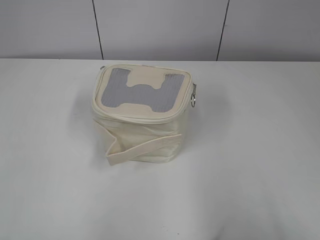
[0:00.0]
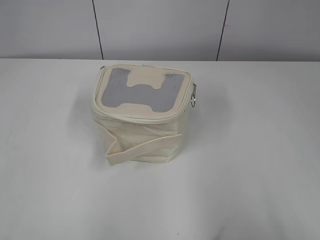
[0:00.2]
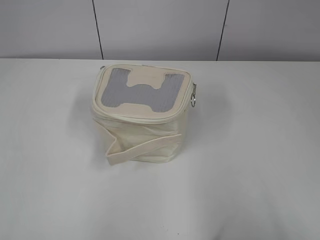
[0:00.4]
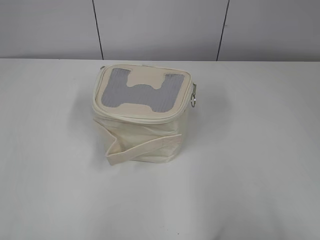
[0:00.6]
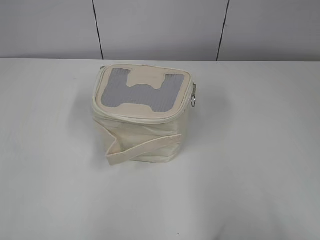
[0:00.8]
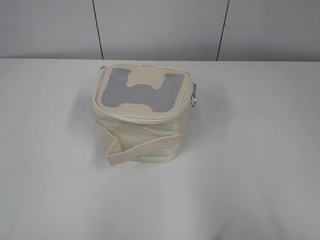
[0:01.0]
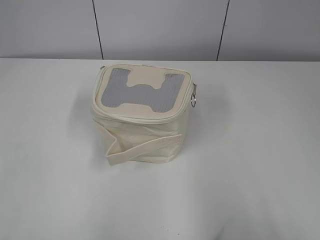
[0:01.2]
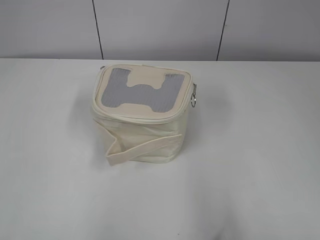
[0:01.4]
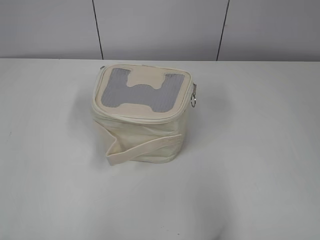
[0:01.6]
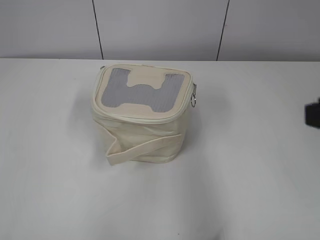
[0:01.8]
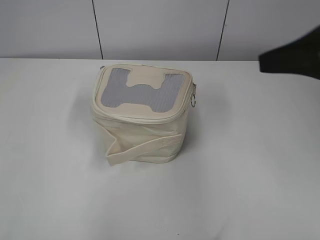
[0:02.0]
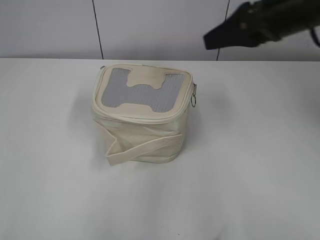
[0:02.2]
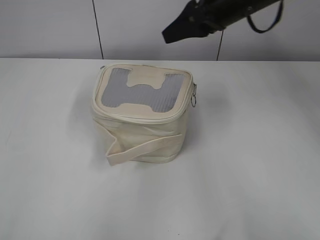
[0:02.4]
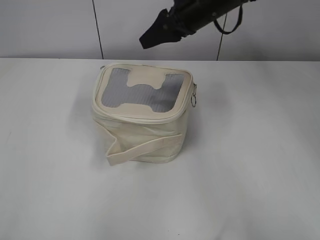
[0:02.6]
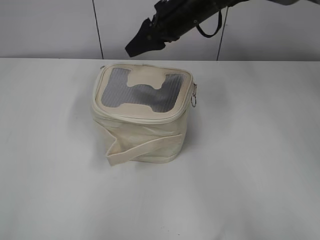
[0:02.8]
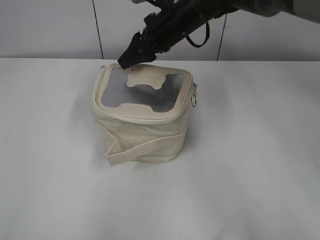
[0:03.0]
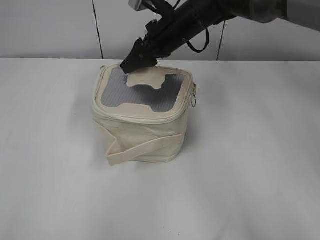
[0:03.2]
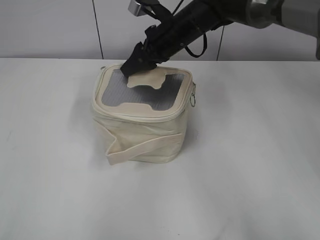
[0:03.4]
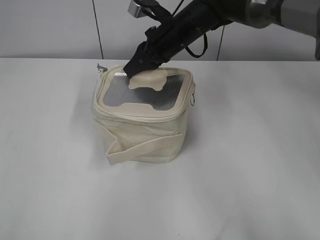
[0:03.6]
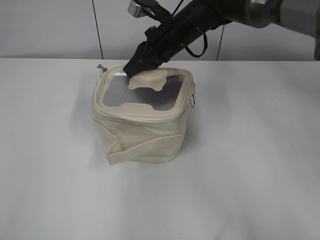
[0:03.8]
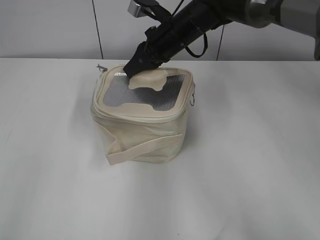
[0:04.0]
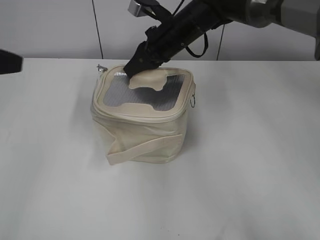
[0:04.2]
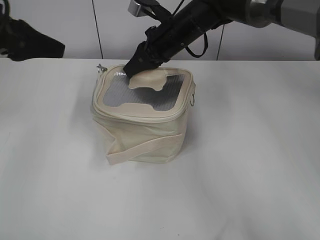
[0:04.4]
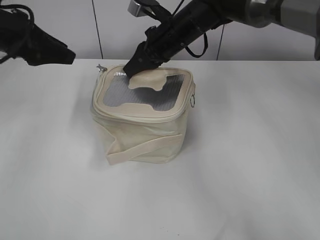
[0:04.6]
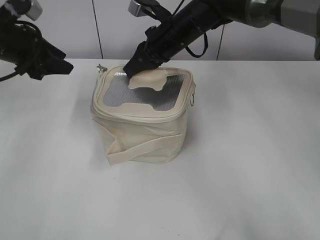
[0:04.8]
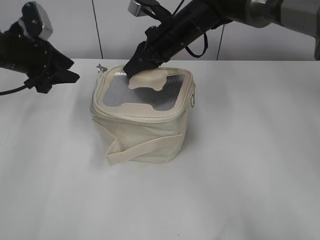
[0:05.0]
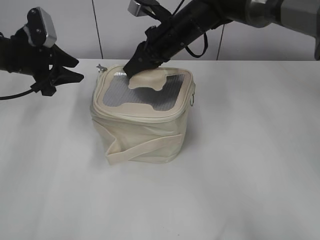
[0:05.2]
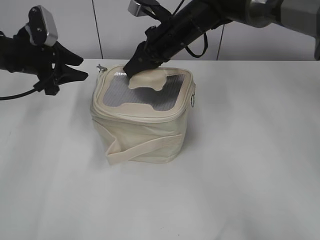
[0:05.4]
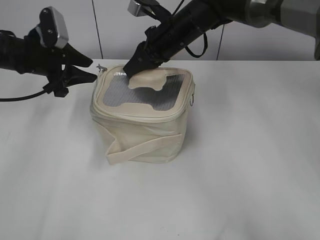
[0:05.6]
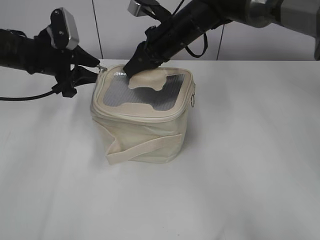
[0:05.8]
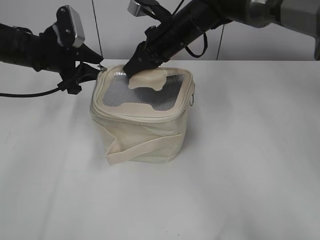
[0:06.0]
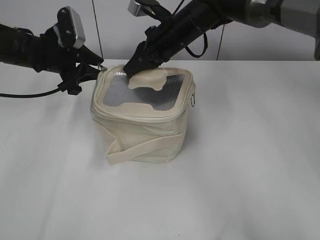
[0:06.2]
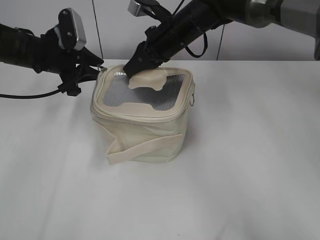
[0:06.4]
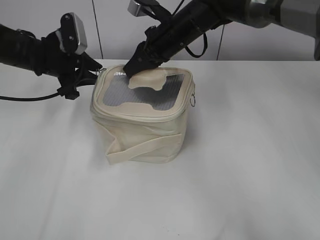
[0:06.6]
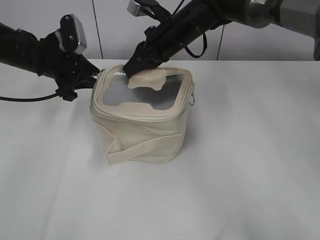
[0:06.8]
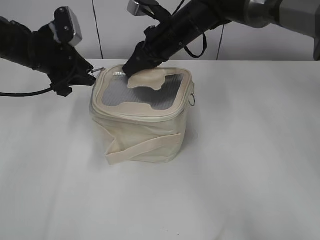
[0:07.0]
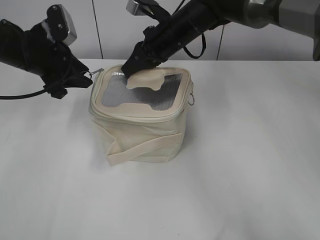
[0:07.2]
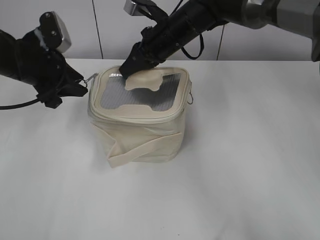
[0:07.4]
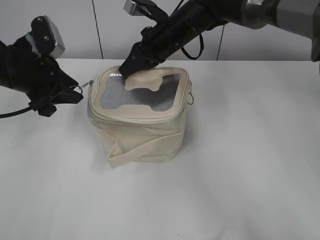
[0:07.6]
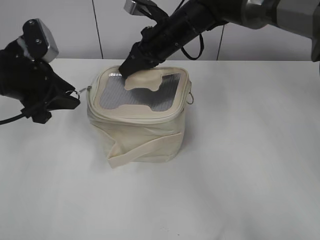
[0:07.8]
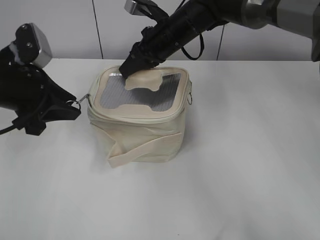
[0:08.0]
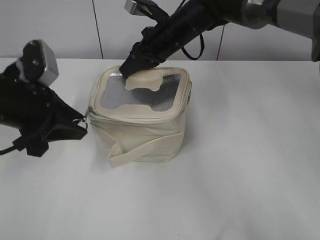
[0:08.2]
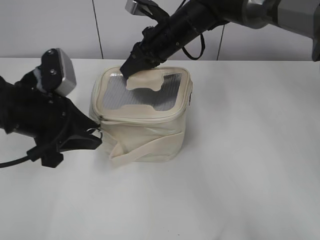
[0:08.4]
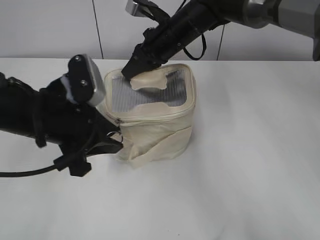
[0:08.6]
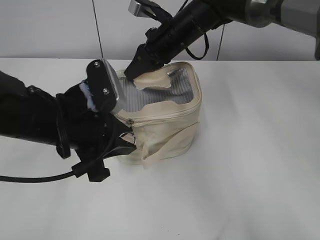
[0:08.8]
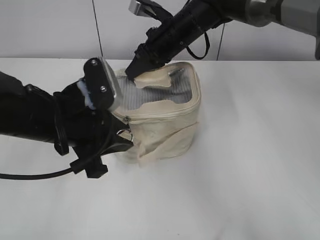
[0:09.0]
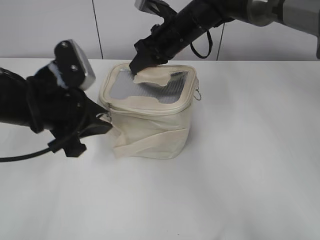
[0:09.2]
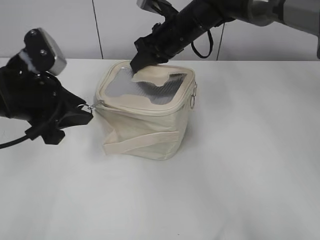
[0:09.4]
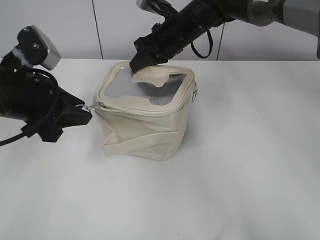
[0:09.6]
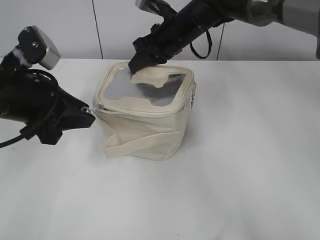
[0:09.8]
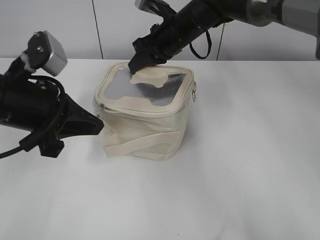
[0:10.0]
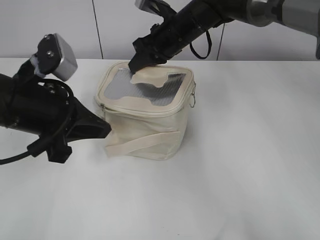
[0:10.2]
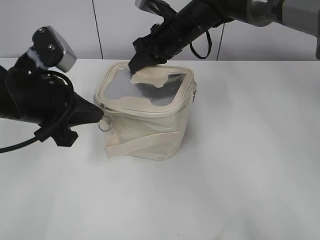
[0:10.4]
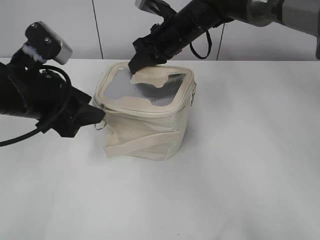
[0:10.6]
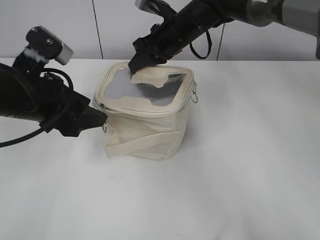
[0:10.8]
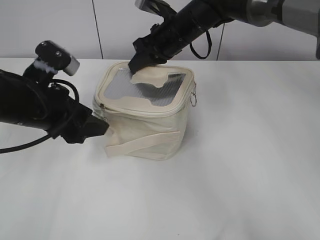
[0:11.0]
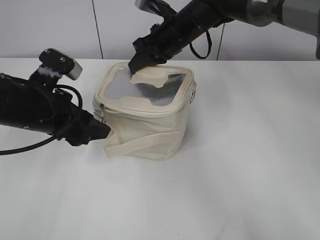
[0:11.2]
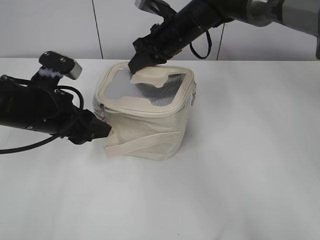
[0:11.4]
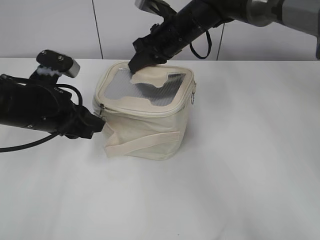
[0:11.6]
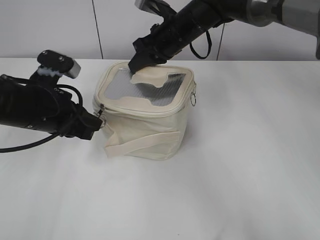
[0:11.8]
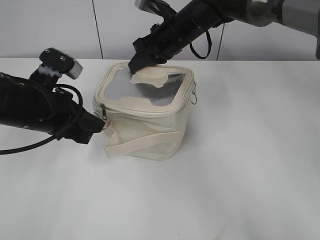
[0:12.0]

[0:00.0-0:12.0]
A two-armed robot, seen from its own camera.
0:01.6 to 0:03.0: The right gripper goes approximately 50 cm forward and to the left.
0:03.0 to 0:04.4: The right gripper closes its fingers. The left gripper moves forward, approximately 30 cm.
0:04.4 to 0:06.0: The left gripper travels forward and downward by some 15 cm.
0:06.0 to 0:07.6: The left gripper moves backward, about 5 cm.
0:07.6 to 0:09.0: The left gripper travels backward and to the right by approximately 15 cm.
0:09.0 to 0:10.4: The left gripper shifts roughly 5 cm to the left, and closes its fingers.
0:10.4 to 0:12.0: The left gripper opens and closes again.

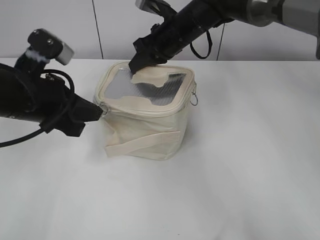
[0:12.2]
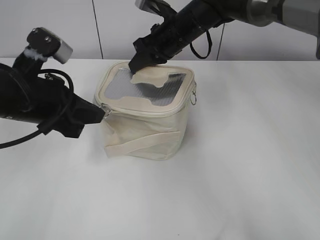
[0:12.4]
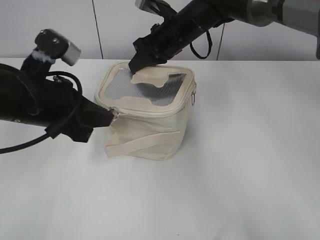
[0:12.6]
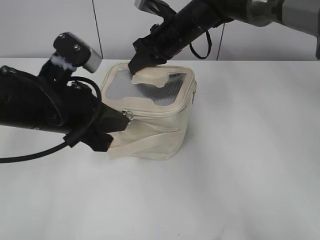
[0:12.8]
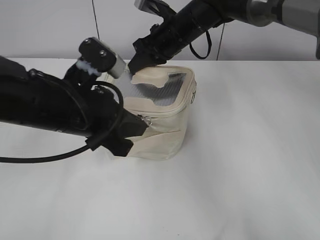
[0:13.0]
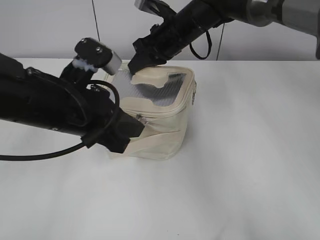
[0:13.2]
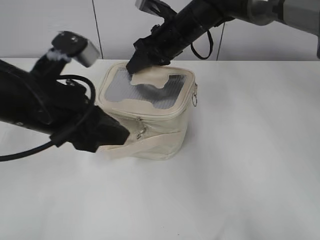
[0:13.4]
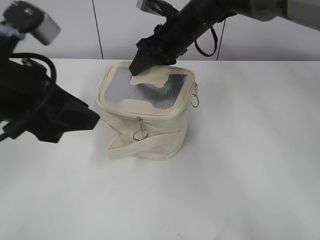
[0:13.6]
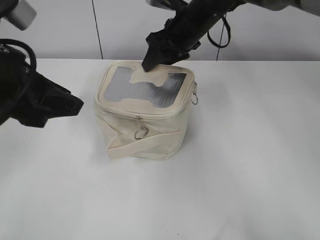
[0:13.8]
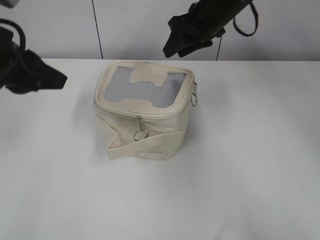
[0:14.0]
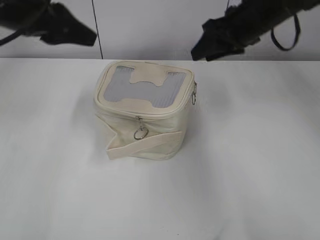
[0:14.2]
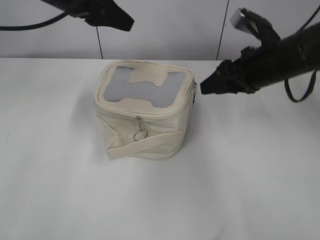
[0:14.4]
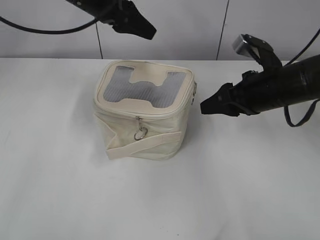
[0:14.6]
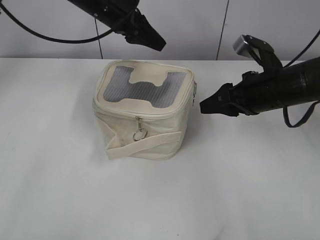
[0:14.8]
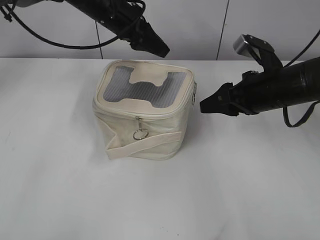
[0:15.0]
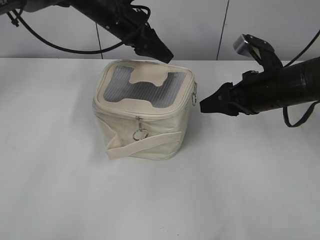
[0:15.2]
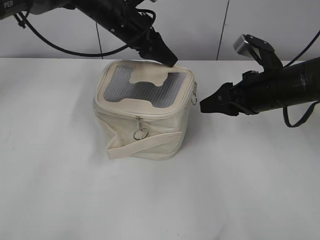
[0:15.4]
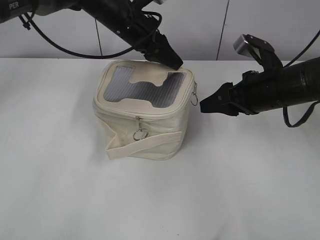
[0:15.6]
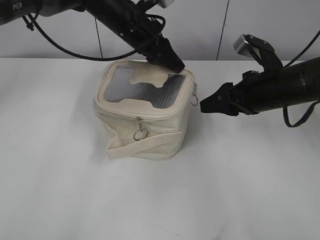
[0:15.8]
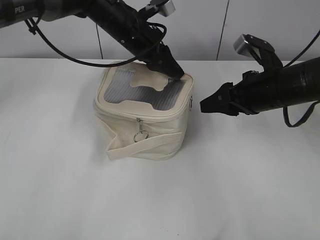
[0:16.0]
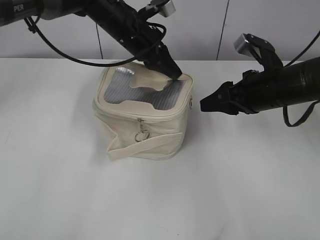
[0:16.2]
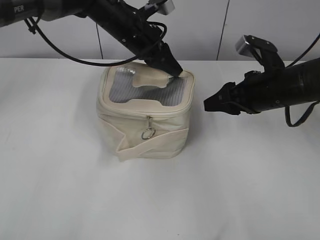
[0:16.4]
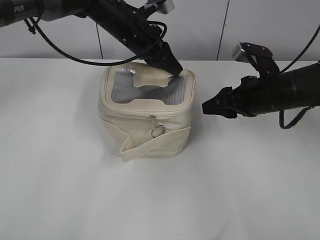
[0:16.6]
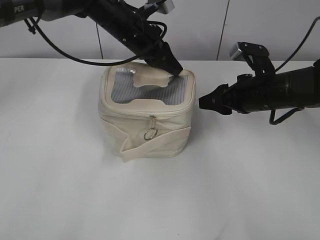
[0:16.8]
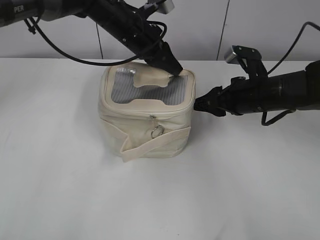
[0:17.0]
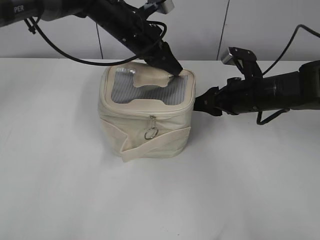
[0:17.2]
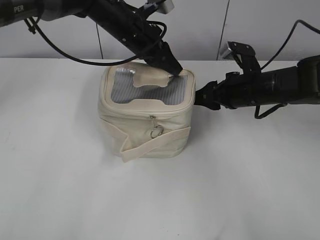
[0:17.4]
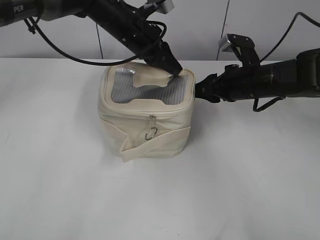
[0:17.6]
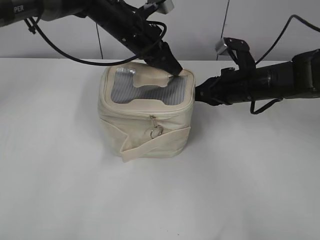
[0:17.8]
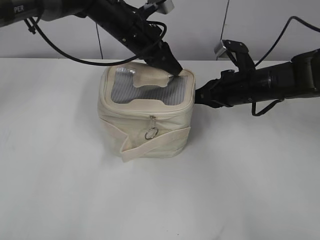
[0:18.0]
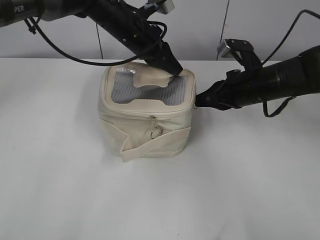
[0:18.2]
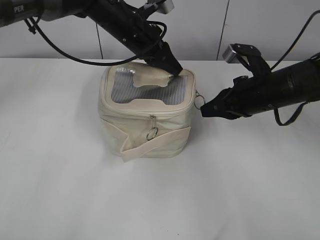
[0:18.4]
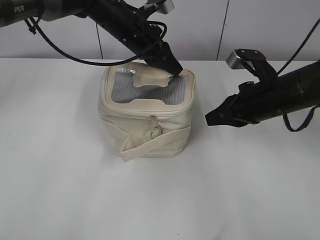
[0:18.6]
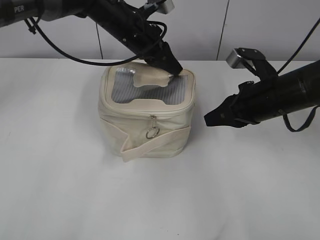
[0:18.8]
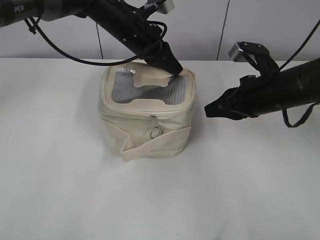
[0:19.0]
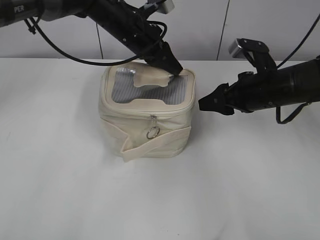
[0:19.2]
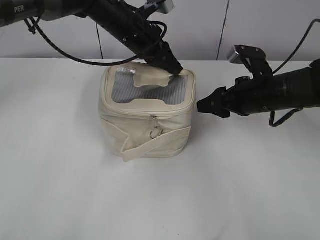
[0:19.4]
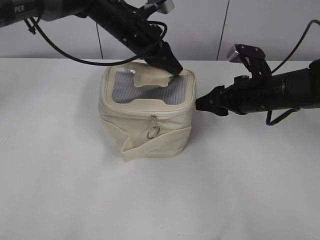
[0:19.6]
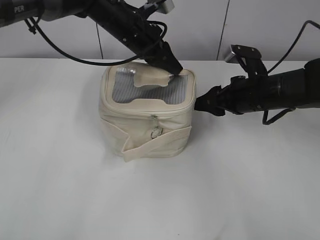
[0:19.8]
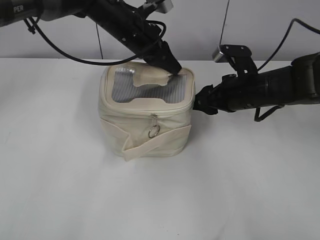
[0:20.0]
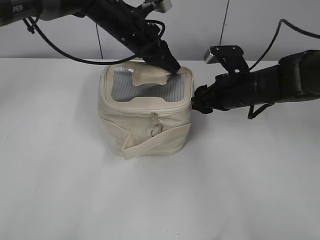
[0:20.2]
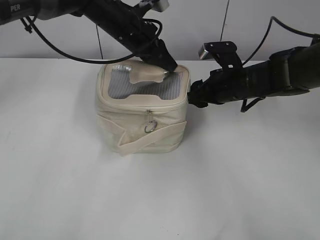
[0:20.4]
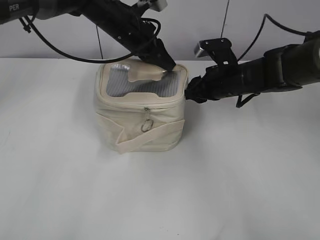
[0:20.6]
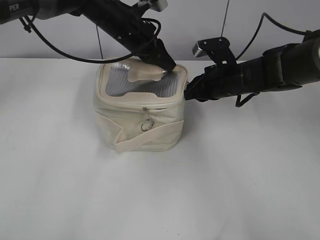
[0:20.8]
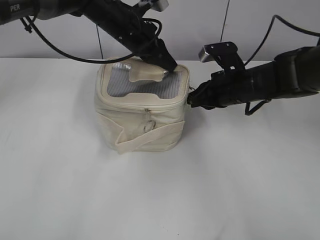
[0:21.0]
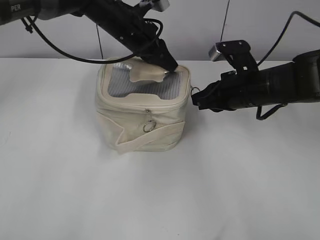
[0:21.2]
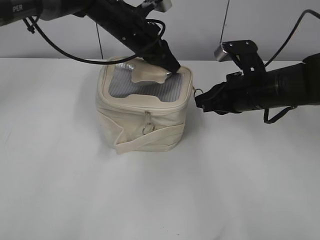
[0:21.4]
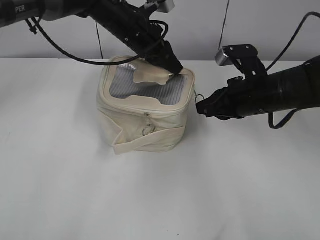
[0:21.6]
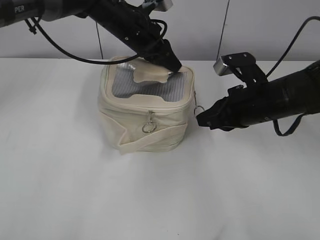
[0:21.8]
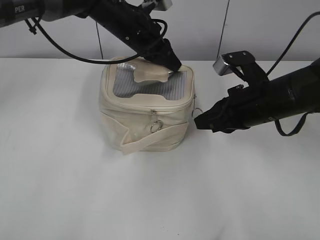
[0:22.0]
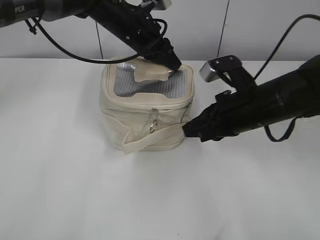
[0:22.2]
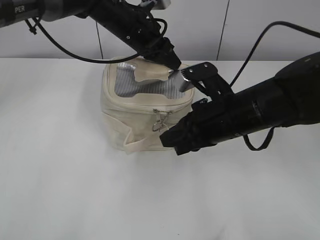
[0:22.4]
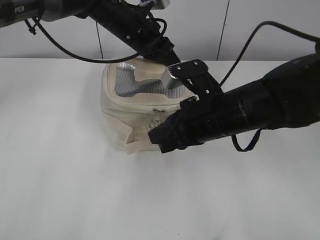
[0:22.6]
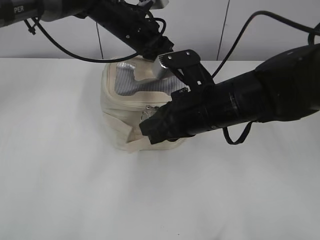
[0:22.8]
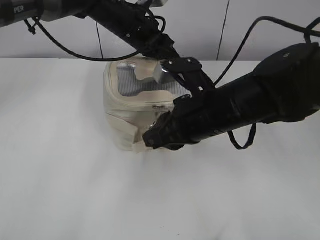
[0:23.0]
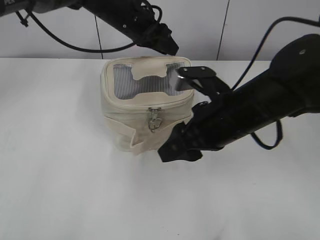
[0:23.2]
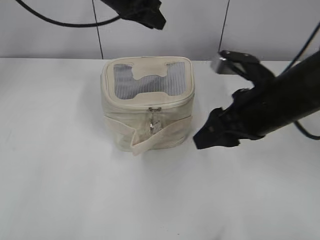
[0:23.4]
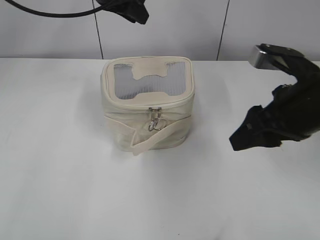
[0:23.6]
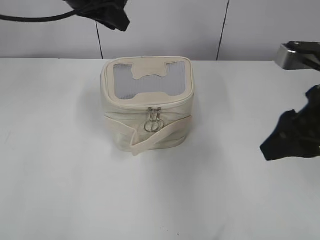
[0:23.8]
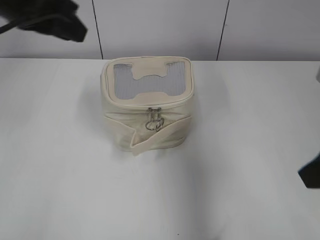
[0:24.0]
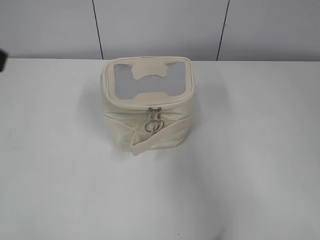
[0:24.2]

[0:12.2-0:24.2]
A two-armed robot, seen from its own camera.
Step, 0:13.6 to 0:13.8: Hold the bag with your right hand.
Step, 0:14.0 to 0:22.8: Zip up the bag with your right hand.
0:12.2 to 0:13.8: The left gripper moves upward and backward, some 10 cm, and opens, while the right gripper opens.
0:13.8 to 0:15.2: The right gripper goes about 20 cm to the right and backward. Meanwhile the left gripper heads forward and to the right, covering approximately 30 cm.
0:15.2 to 0:16.6: The left gripper closes up.
0:16.6 to 0:18.2: The right gripper closes up.
0:18.2 to 0:19.8: The right gripper opens its fingers.
0:19.8 to 0:21.2: The right gripper closes.
0:21.2 to 0:22.6: The right gripper heads backward and to the left, covering approximately 10 cm.
0:22.6 to 0:24.2: The left gripper heads backward, to the left and upward, covering approximately 35 cm, and opens up, while the right gripper shifts roughly 25 cm to the right, backward and upward, and opens.
